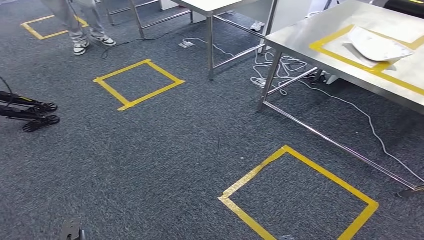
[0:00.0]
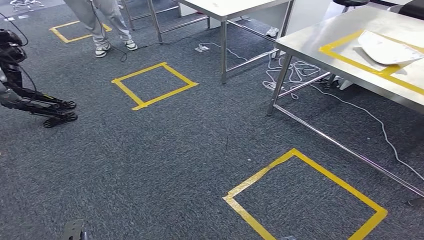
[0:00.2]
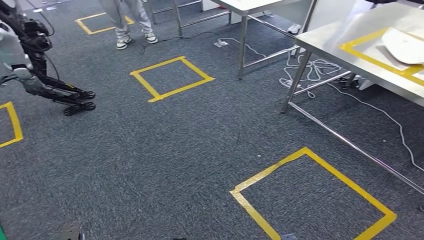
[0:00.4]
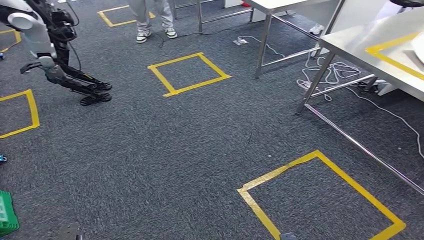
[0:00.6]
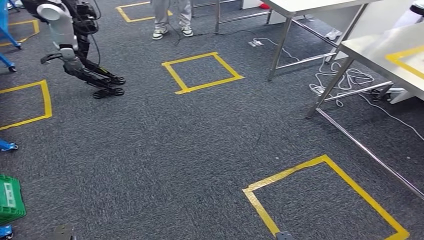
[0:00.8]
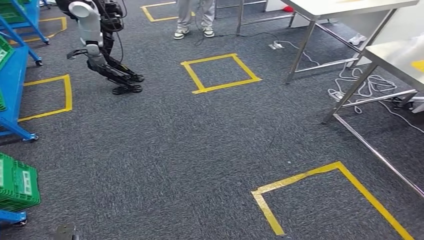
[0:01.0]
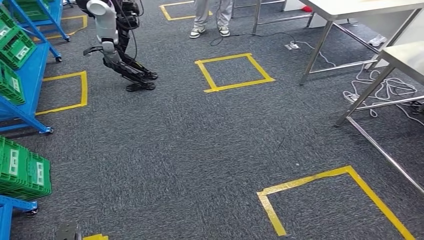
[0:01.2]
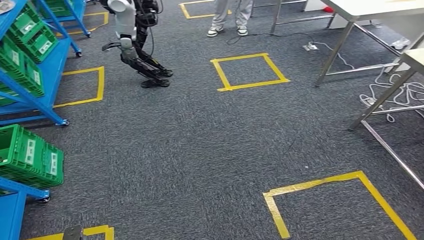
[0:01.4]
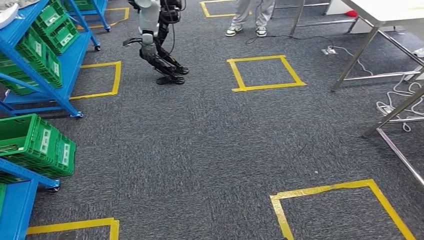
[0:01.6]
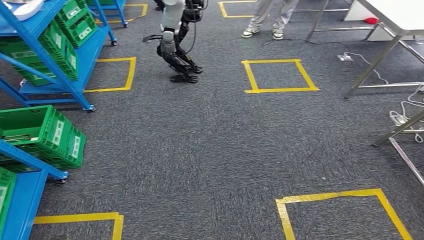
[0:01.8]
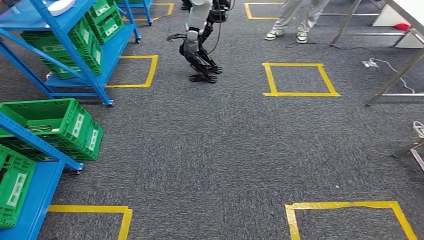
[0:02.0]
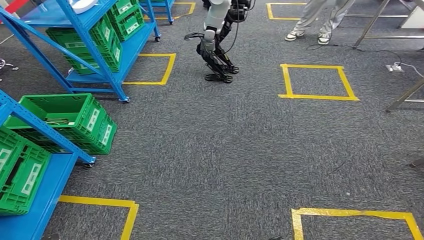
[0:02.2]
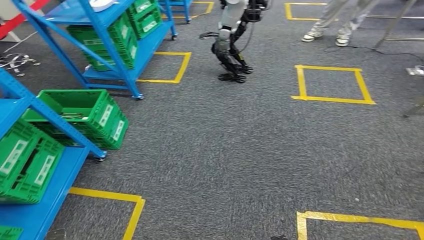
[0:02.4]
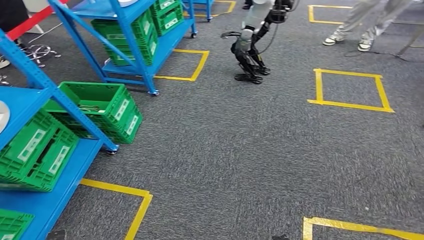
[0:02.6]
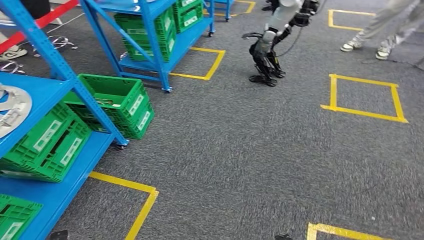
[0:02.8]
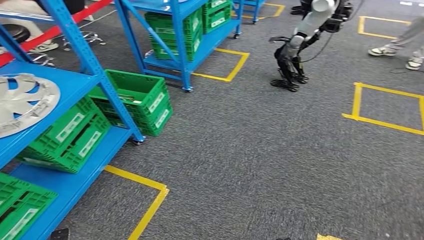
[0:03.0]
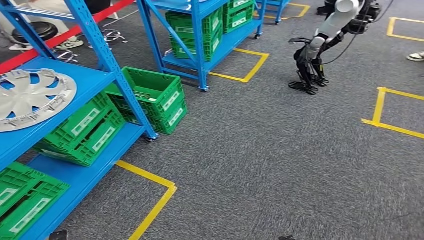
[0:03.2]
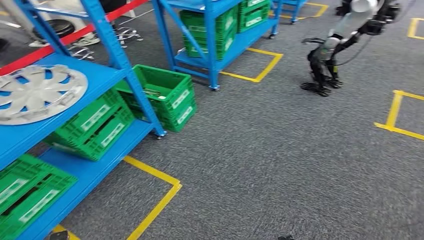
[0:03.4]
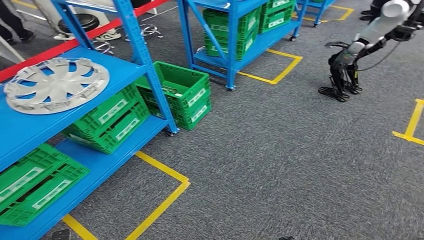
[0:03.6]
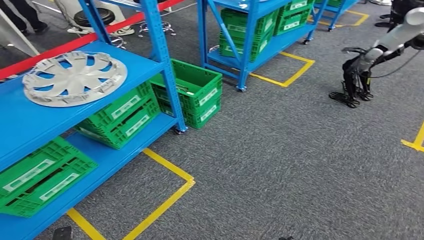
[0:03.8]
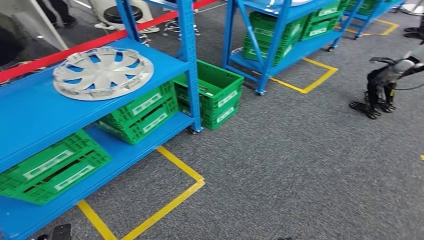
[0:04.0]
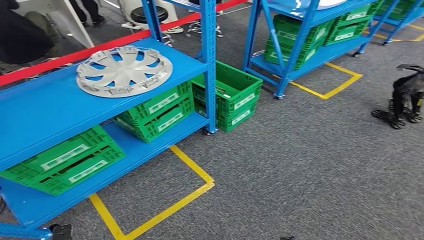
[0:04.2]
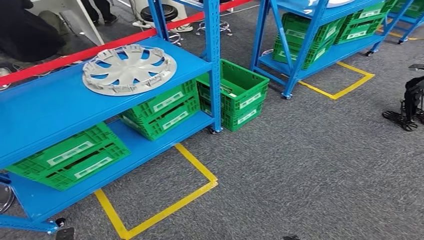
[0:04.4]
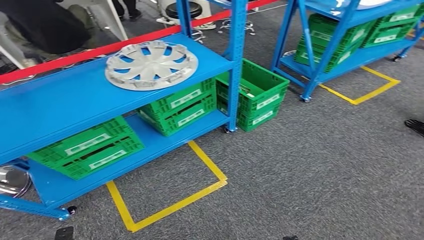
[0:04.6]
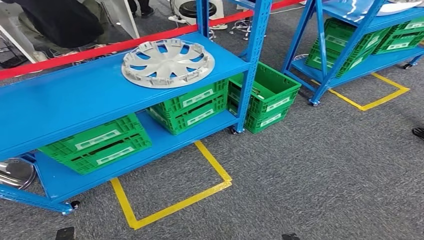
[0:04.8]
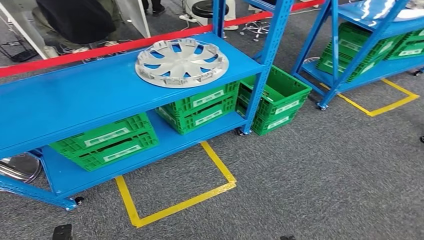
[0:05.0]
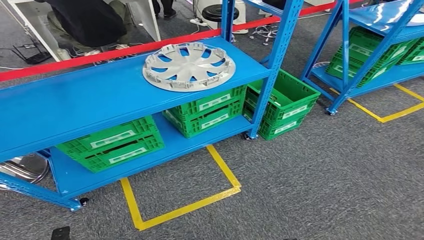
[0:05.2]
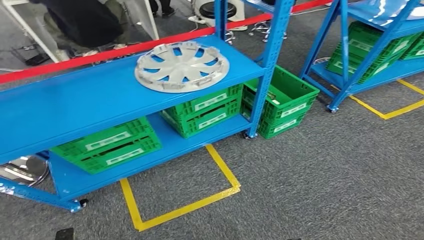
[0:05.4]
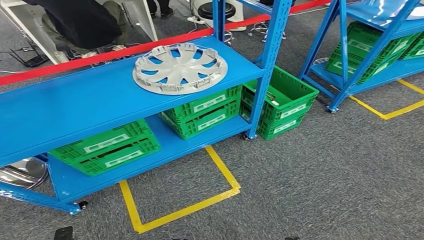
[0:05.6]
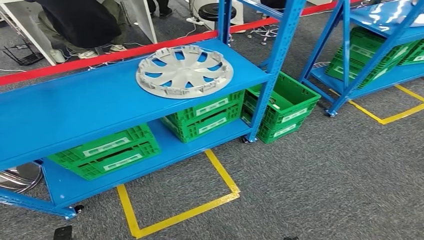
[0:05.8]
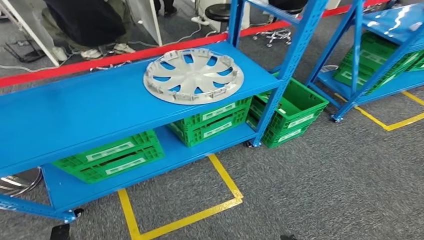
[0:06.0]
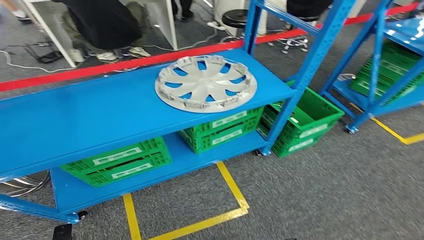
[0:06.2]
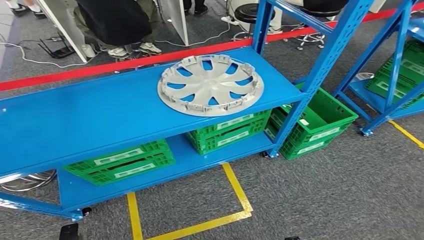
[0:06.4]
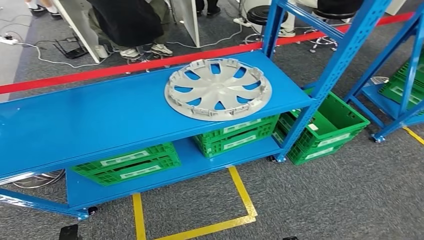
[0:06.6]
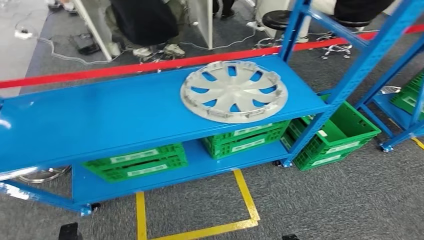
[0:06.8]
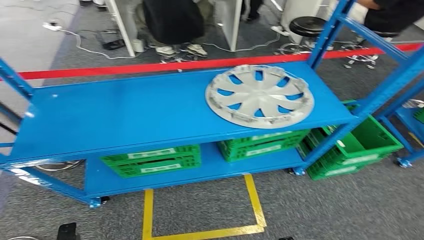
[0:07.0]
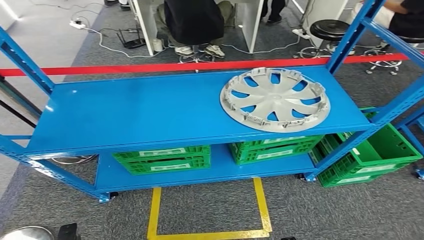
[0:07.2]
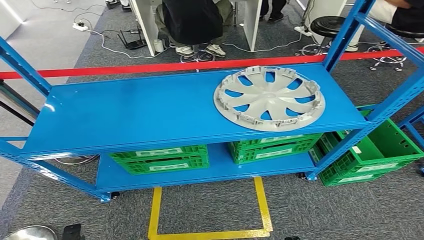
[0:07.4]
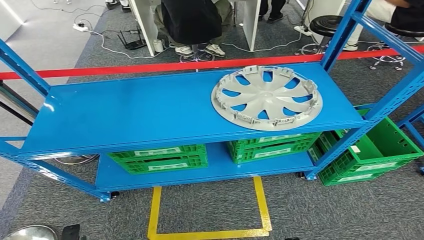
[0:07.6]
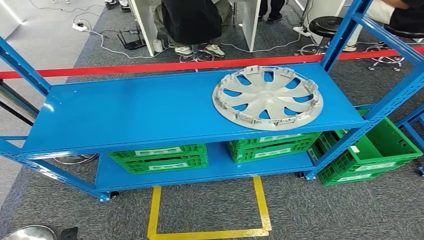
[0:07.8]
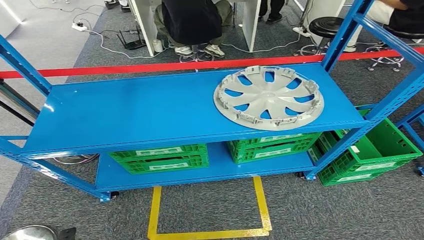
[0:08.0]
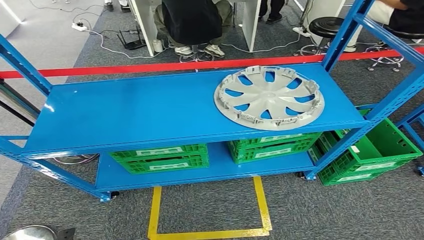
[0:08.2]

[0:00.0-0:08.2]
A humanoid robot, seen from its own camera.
Step, 0:00.0 to 0:08.2: Move to the initial position of the workbench.

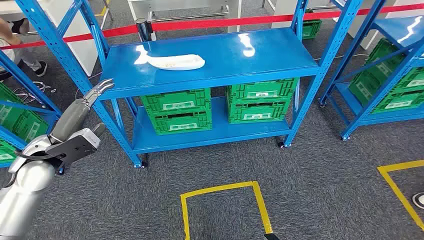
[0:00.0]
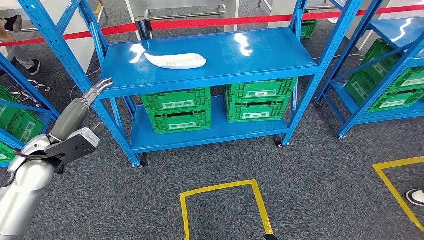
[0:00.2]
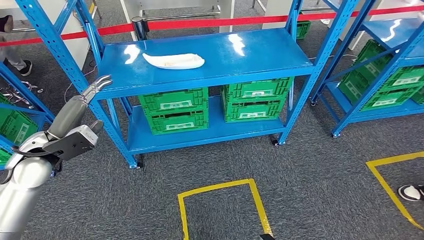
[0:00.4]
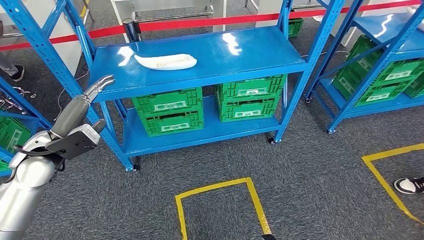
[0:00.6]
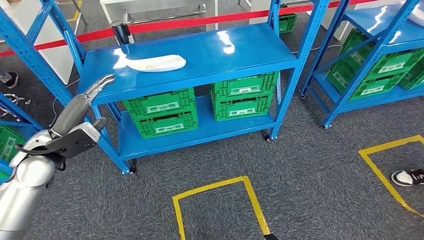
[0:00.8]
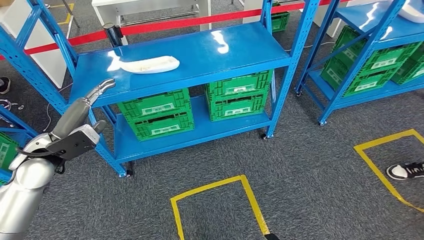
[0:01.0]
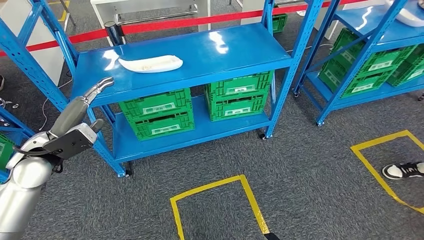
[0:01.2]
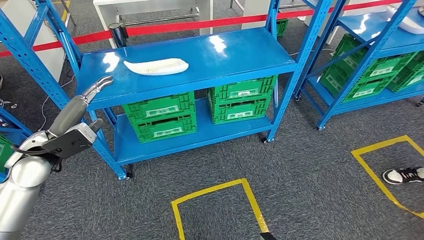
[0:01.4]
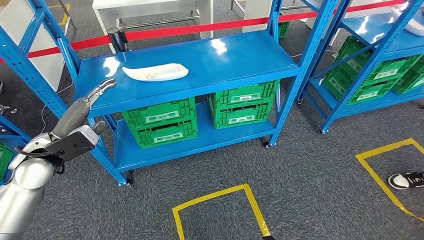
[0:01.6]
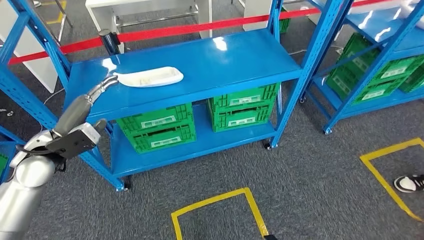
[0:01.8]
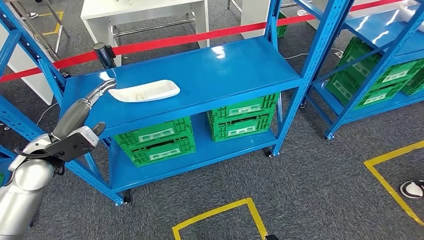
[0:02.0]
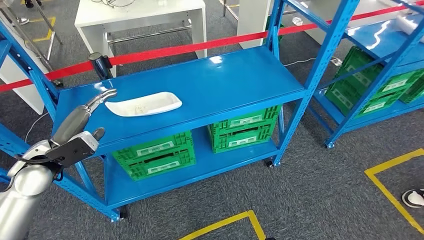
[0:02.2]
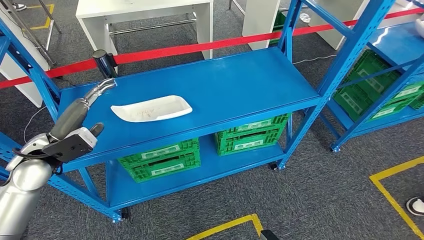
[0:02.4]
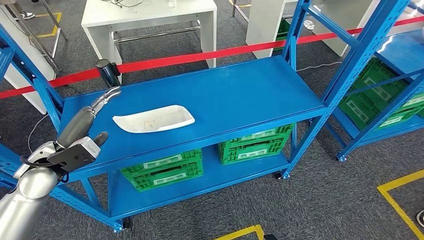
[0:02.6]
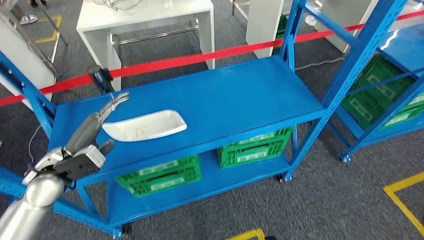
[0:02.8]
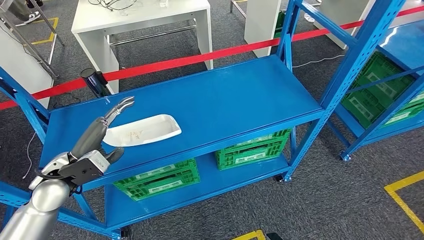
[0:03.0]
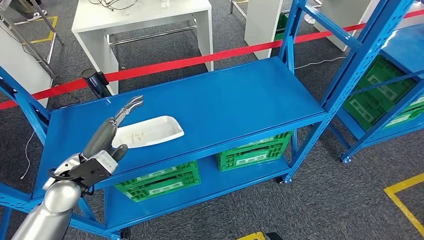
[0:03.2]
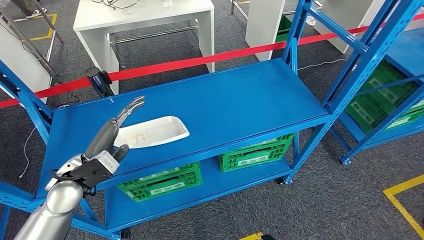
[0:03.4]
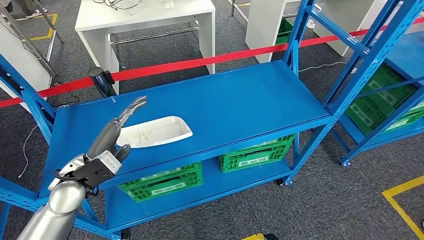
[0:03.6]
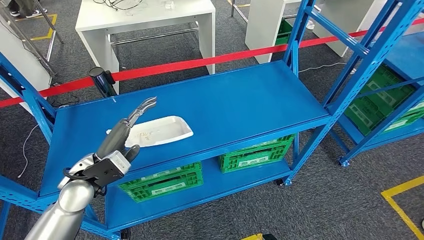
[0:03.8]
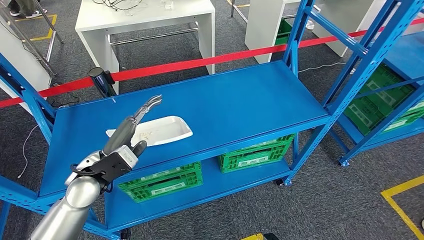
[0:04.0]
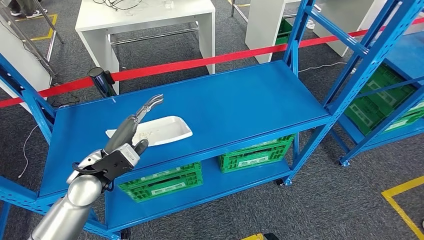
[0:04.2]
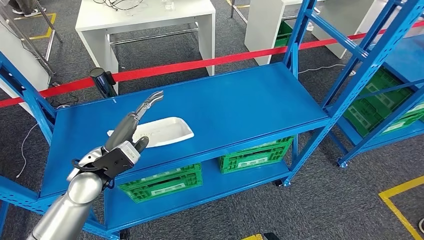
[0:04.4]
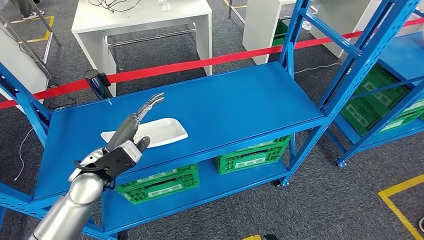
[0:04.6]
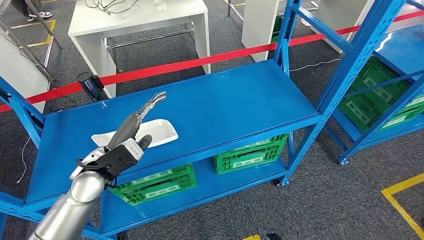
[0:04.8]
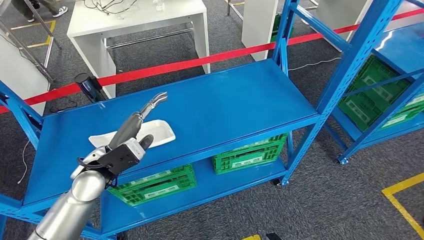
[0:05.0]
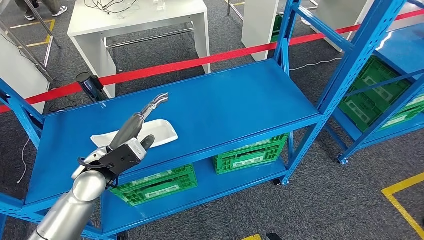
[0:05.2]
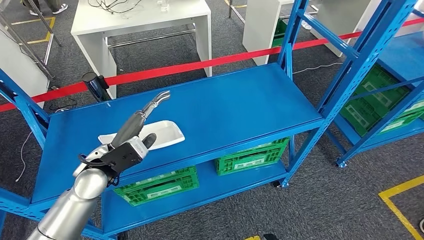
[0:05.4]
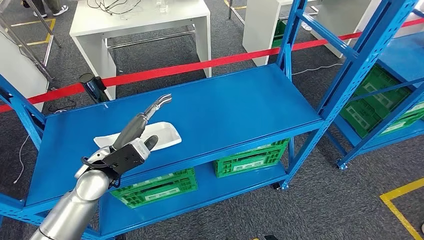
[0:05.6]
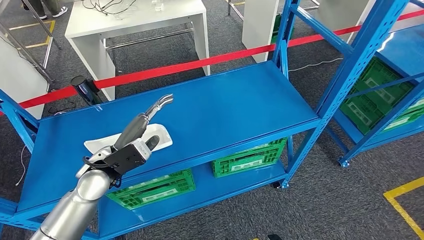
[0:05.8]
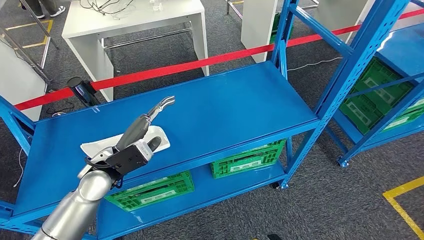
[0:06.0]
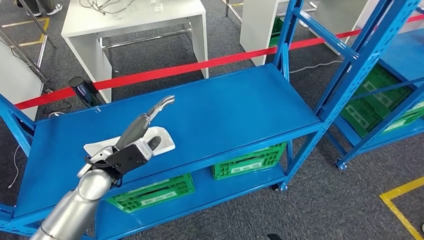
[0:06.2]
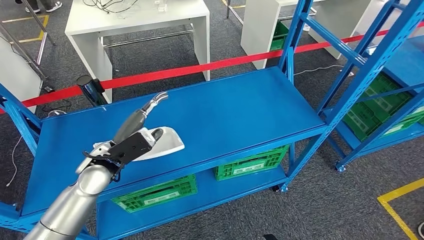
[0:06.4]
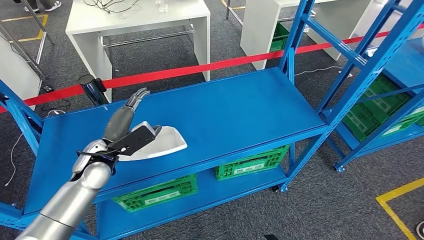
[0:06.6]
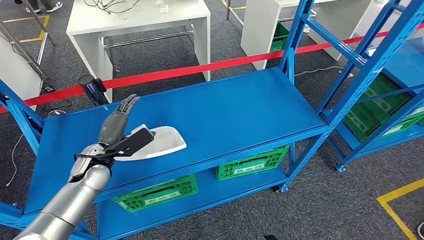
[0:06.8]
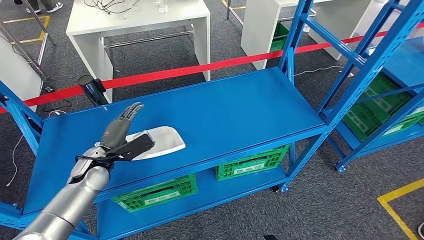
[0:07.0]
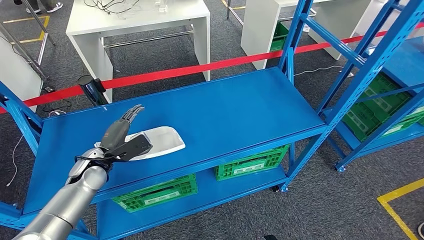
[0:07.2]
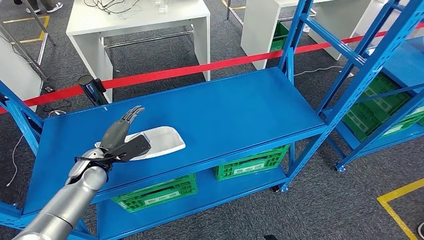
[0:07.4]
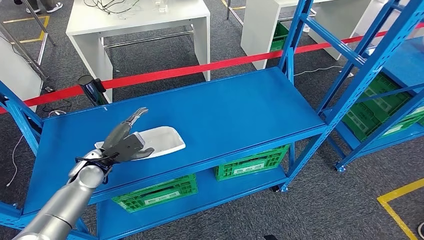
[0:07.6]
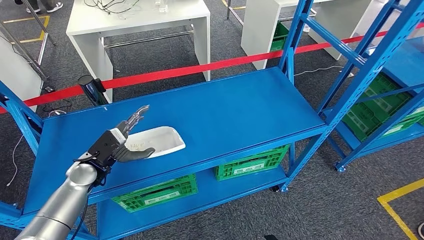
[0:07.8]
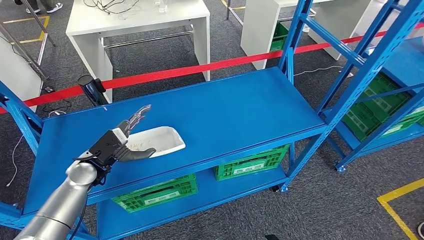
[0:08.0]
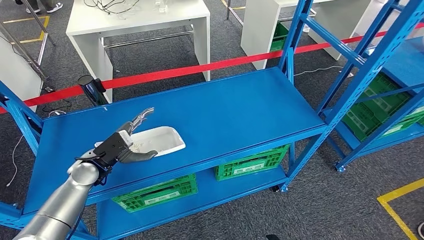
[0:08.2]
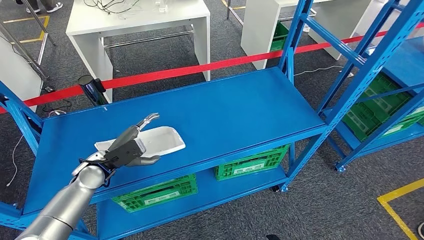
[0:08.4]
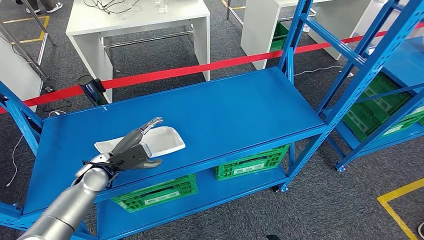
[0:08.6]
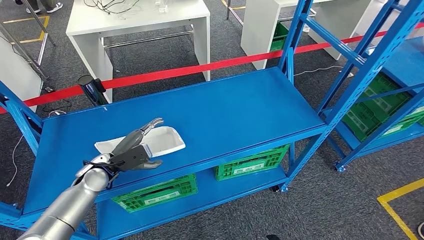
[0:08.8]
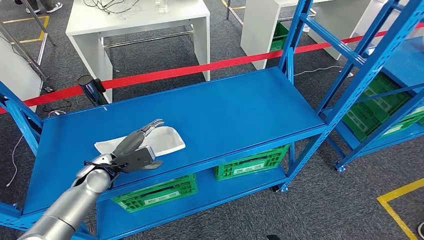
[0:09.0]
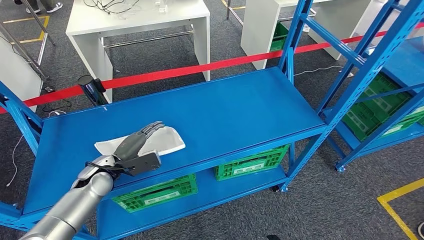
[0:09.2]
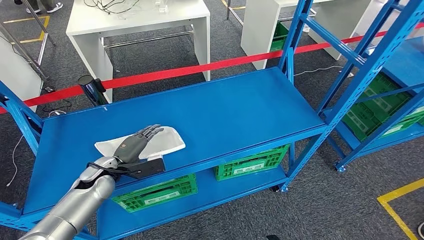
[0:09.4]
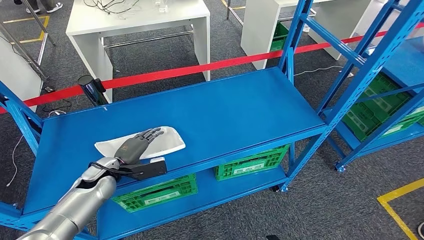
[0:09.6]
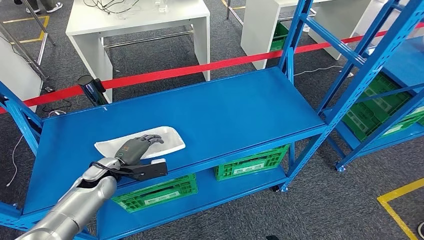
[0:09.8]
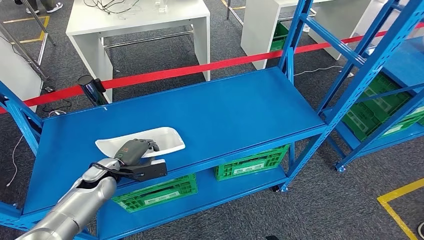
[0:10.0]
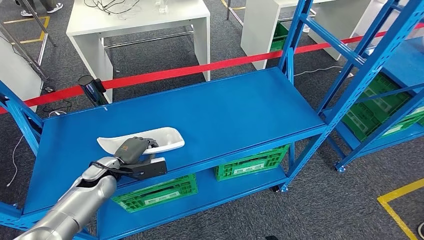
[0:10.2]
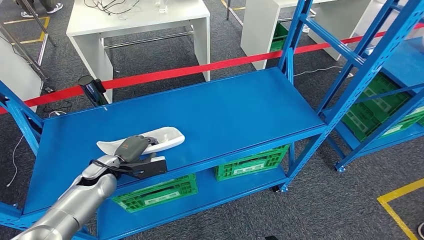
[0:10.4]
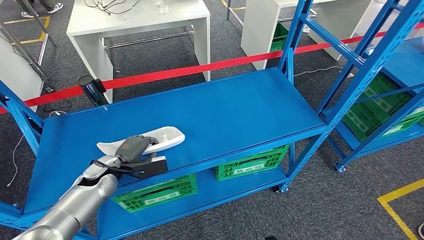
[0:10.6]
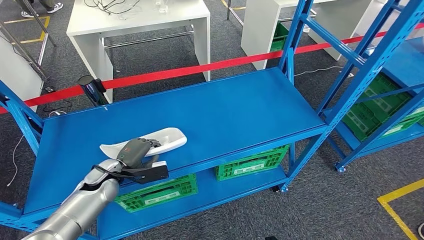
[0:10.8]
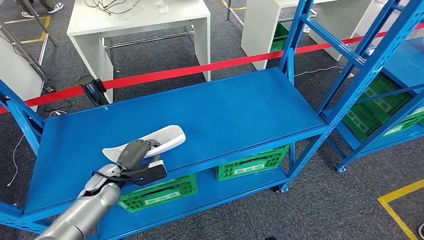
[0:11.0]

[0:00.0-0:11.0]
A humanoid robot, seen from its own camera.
0:09.4 to 0:11.0: The hands stay close to where they were, moving slightly.
